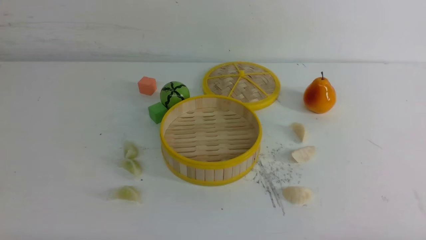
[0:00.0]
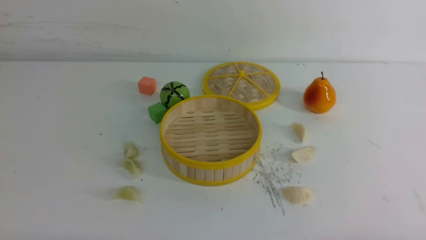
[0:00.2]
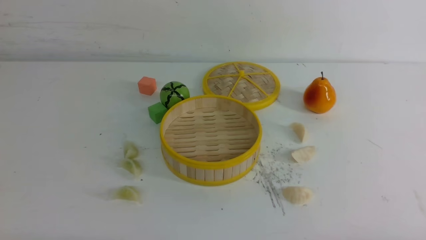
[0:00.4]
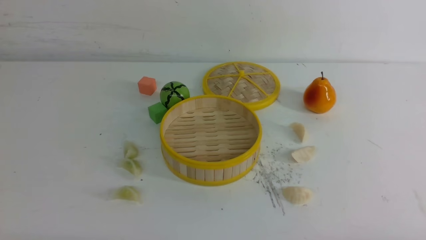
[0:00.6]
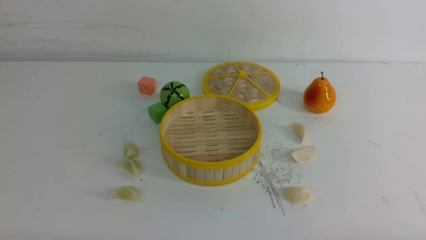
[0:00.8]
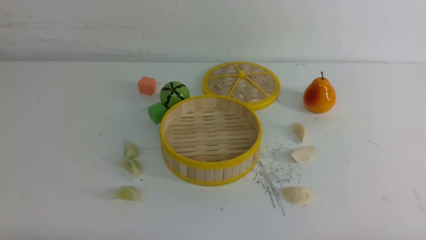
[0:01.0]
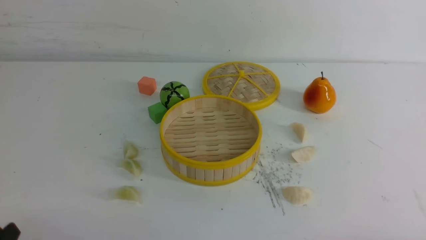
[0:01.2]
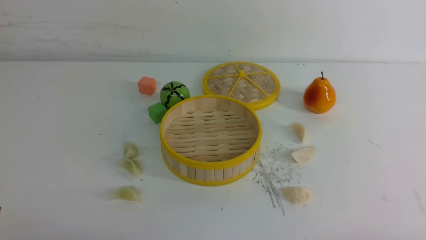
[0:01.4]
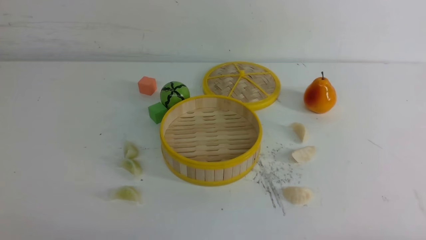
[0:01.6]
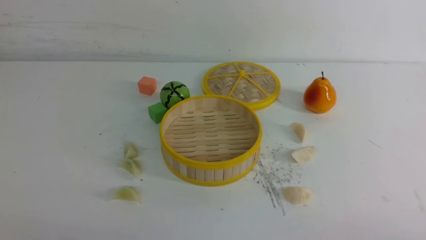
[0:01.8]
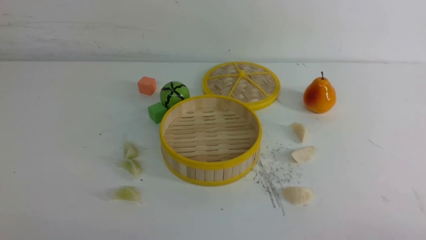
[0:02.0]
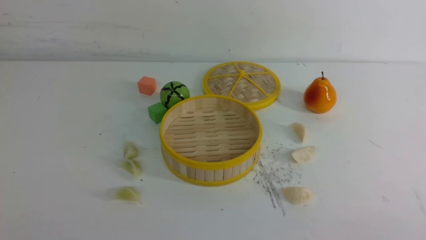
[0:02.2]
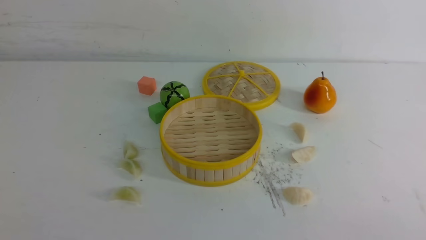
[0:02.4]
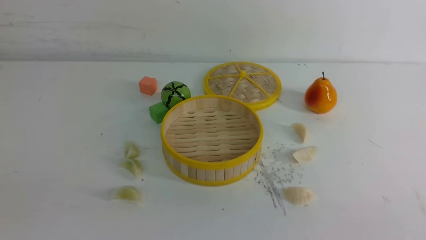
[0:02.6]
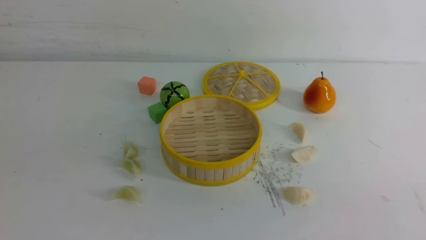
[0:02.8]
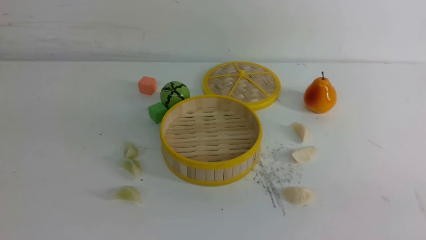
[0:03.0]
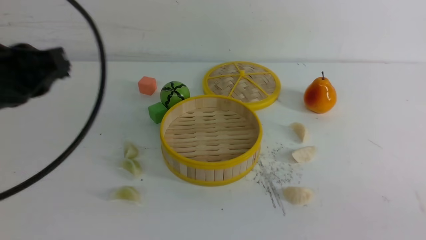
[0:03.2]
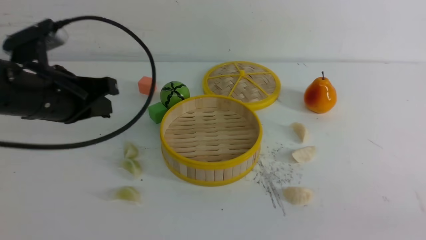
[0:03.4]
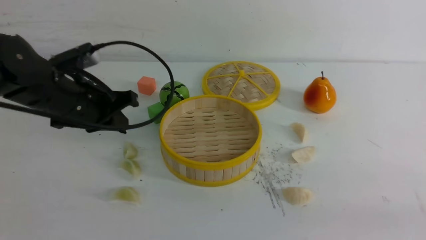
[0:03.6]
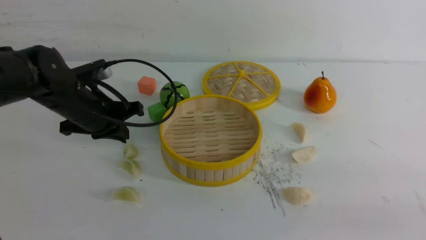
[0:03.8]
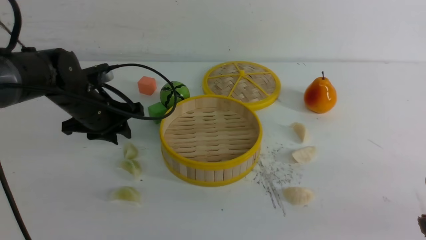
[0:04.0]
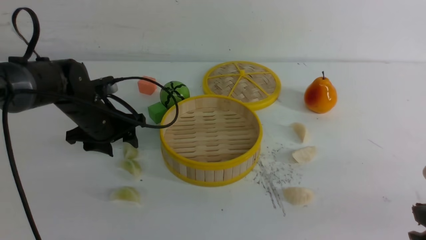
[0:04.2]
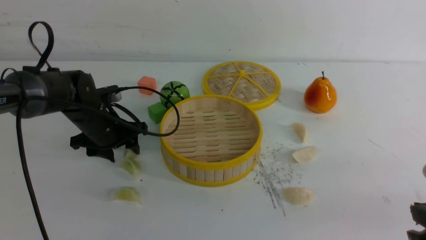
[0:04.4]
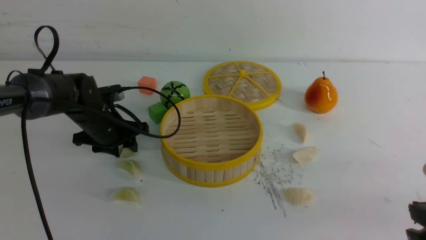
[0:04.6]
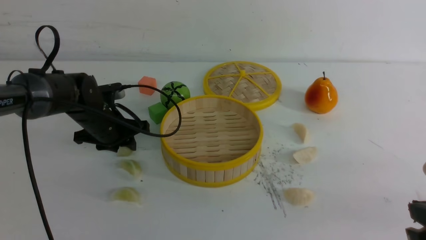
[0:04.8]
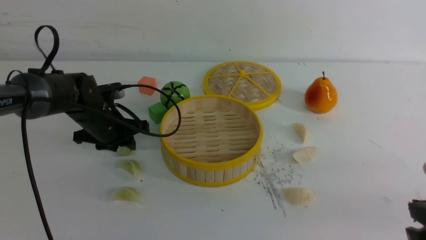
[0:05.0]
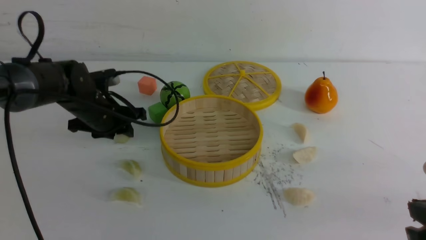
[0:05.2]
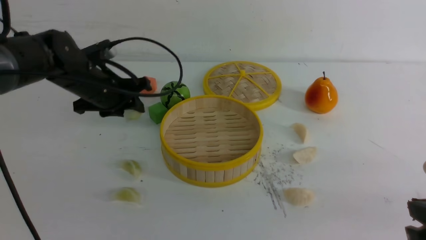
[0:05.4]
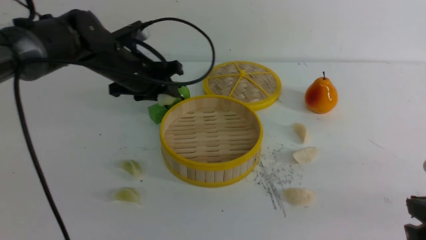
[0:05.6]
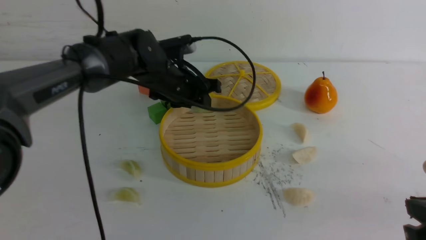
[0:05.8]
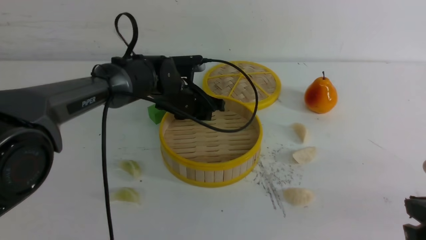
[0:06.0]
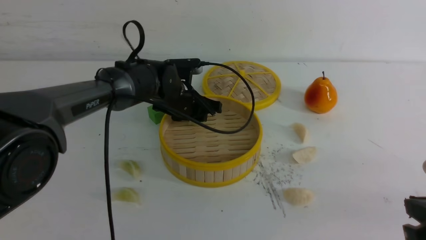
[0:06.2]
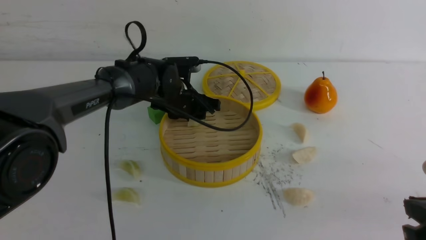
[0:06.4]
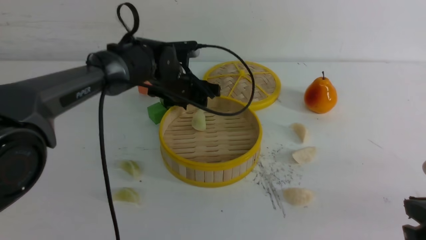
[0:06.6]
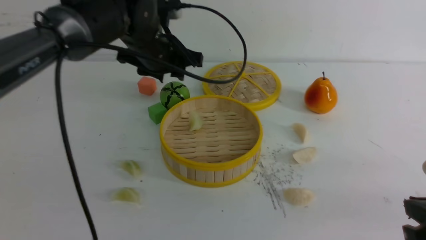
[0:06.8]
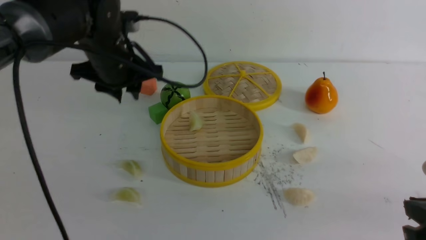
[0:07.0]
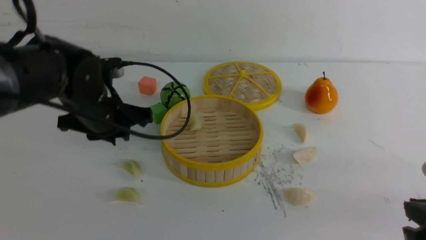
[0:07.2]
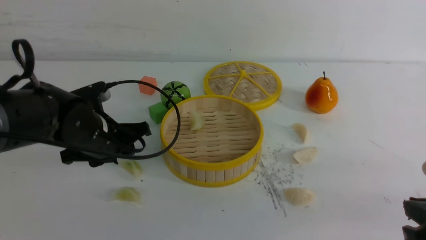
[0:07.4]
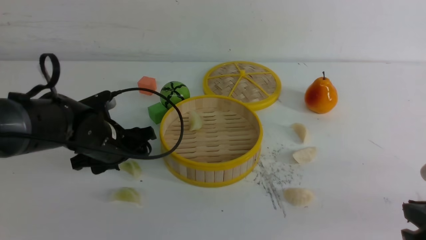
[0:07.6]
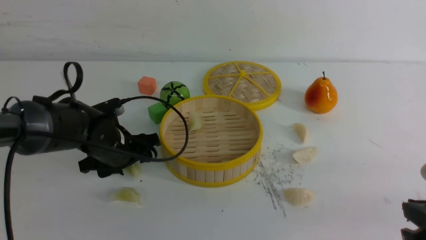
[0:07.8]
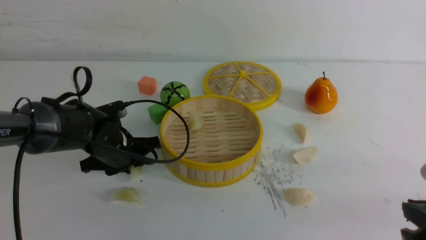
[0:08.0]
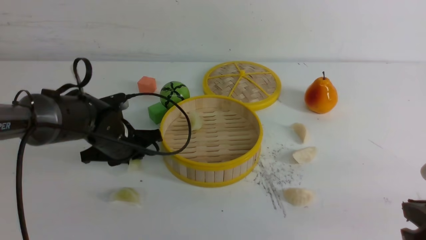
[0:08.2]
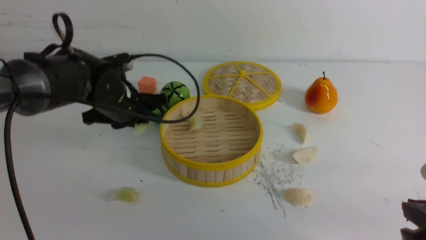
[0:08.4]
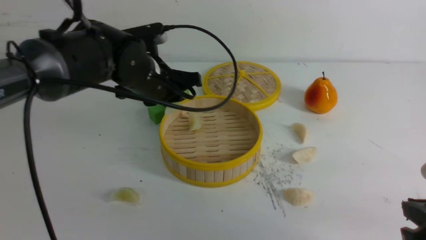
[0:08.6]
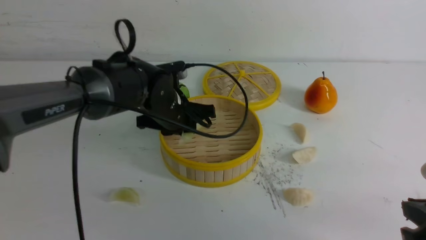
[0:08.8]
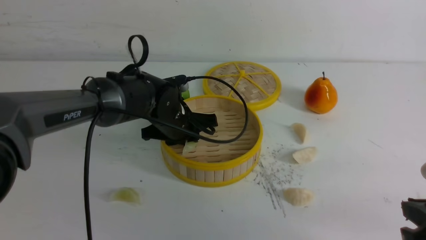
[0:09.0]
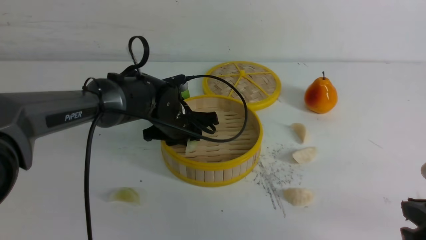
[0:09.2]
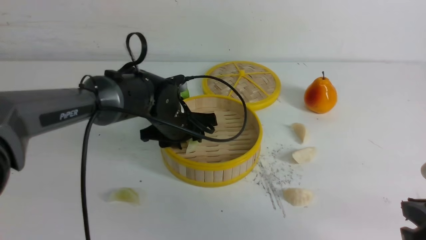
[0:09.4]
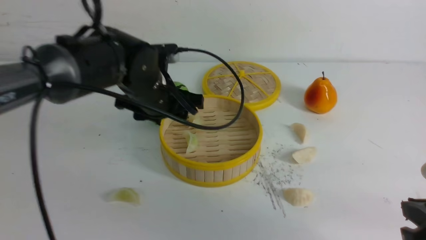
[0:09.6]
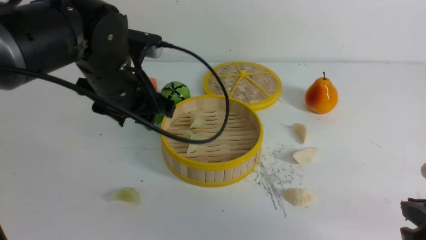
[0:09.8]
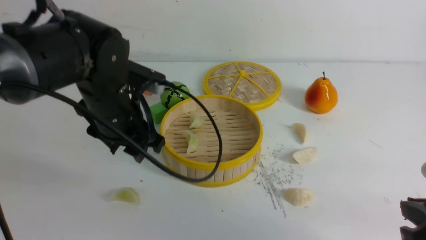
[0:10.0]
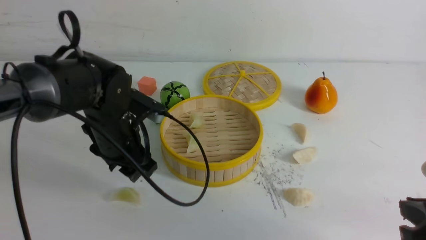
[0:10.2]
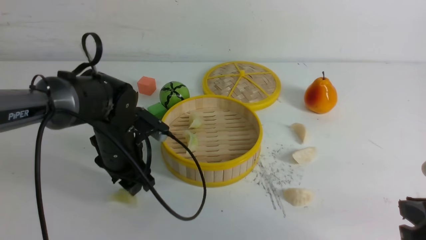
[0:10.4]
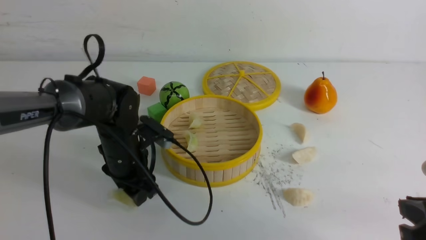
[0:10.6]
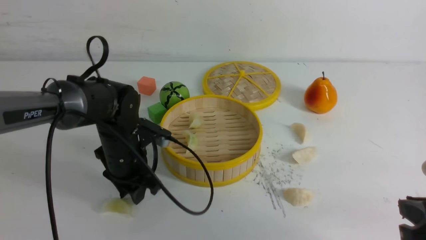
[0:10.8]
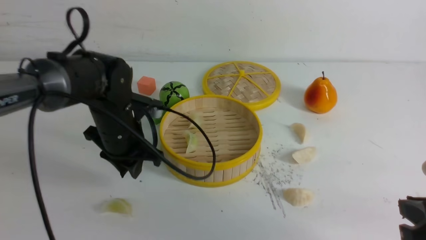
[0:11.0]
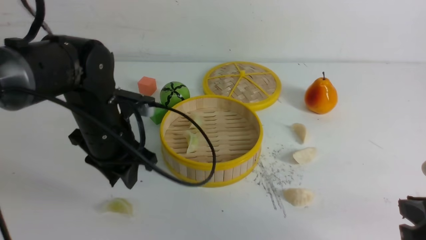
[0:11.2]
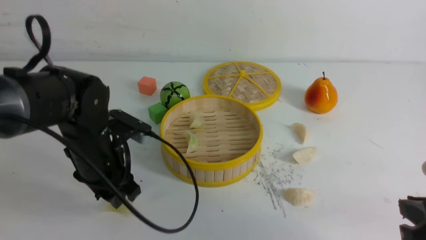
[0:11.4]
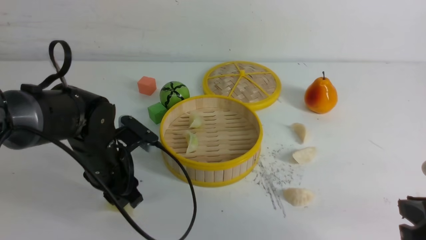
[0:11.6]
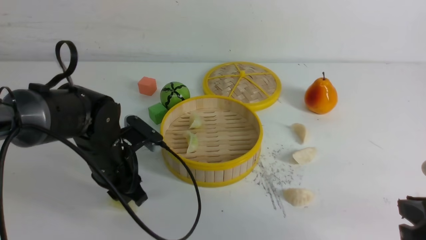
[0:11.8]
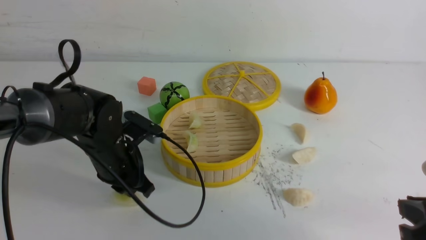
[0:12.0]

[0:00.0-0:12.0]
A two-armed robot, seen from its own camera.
Task of the whole recording: put the dumplings into the steamer on the white table.
Step, 0:00.0 to 0:05.0: use the left arm to grab a dumpling.
Step, 0:05.2 to 0:06.4: use the left arm to put the dumpling into the steamer.
Step, 0:06.6 to 0:08.2: use the left arm to grab a dumpling.
Step, 0:08.4 to 0:09.4: use the left arm to put the dumpling into the steamer.
0:03.0 to 0:04.4: The right gripper goes about 10 cm forward and downward. Meanwhile the left gripper heads downward and forward, covering about 25 cm, and opens up.
0:04.4 to 0:06.0: The left gripper moves to the right, roughly 15 cm, and closes up.
0:06.0 to 0:07.6: The left gripper moves backward and to the left, some 15 cm, and opens.
0:07.6 to 0:09.0: The left gripper heads to the right and forward, covering about 10 cm, and closes up.
0:09.0 to 0:10.4: The left gripper travels to the left by approximately 10 cm, travels upward and back again, roughly 10 cm each way, and opens up.
0:10.4 to 0:12.0: The left gripper closes its fingers.

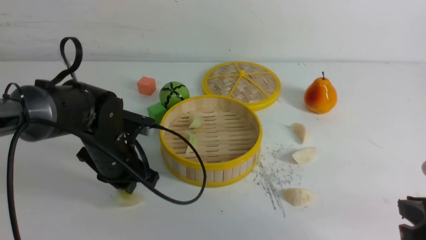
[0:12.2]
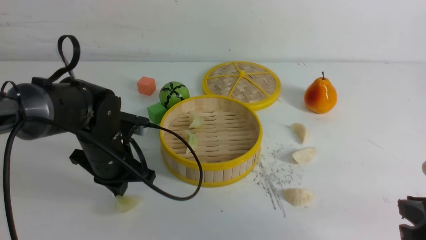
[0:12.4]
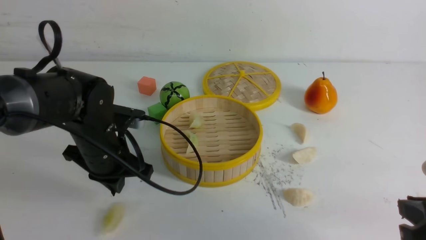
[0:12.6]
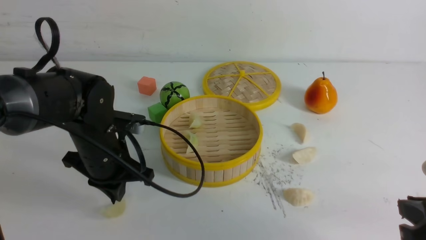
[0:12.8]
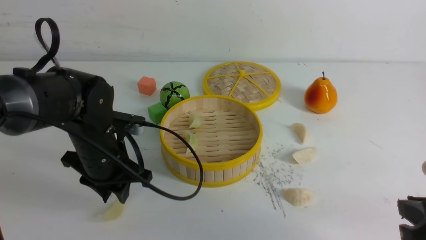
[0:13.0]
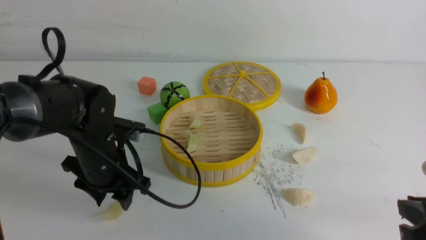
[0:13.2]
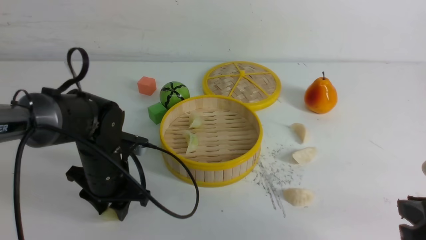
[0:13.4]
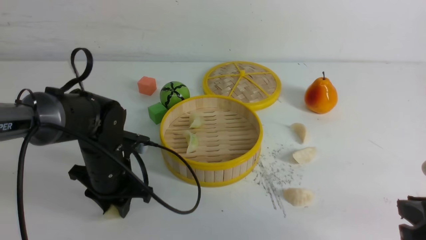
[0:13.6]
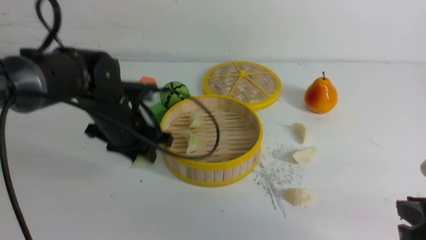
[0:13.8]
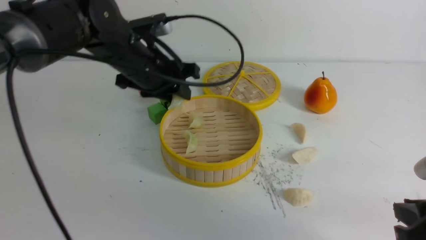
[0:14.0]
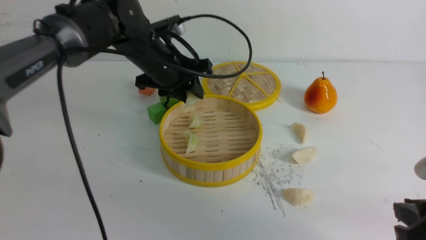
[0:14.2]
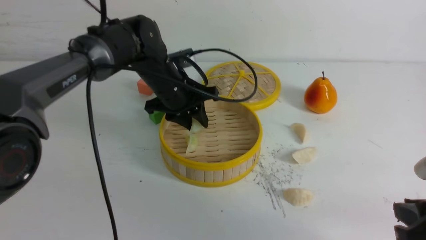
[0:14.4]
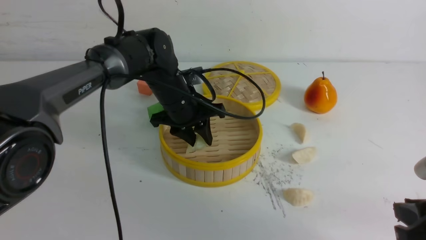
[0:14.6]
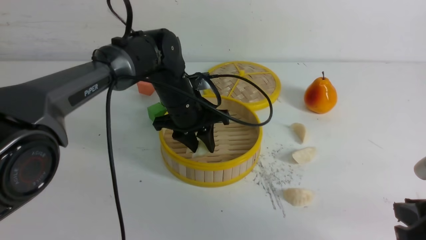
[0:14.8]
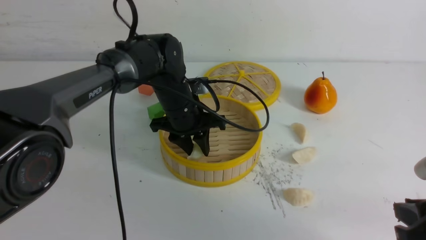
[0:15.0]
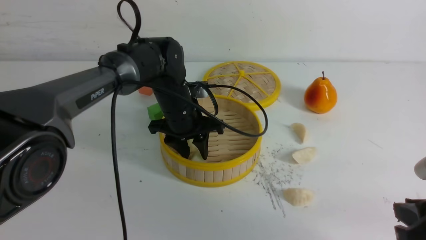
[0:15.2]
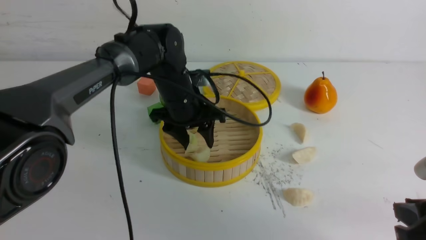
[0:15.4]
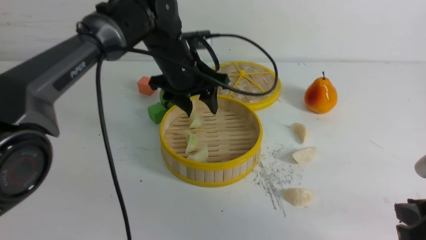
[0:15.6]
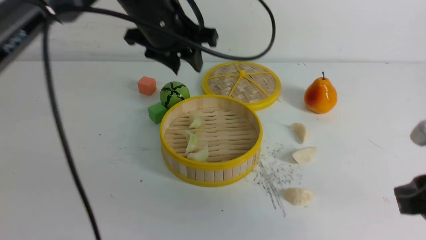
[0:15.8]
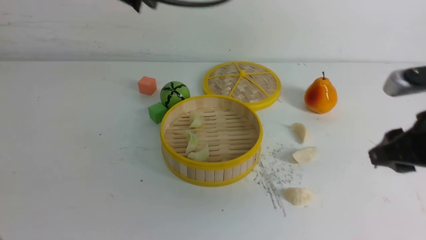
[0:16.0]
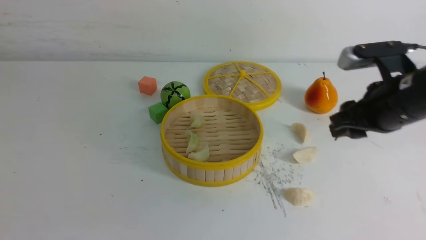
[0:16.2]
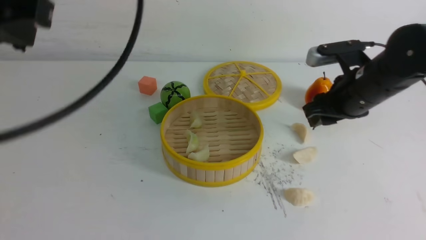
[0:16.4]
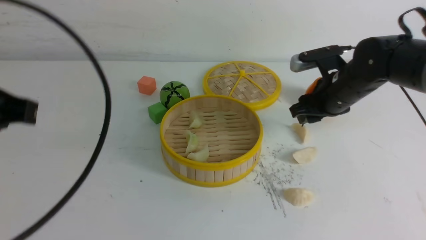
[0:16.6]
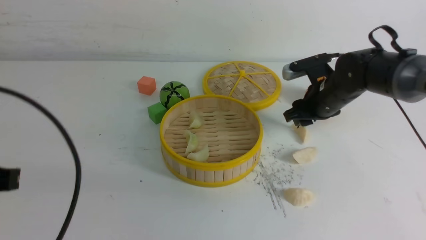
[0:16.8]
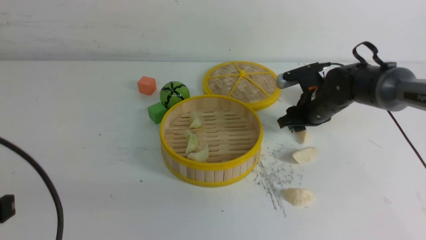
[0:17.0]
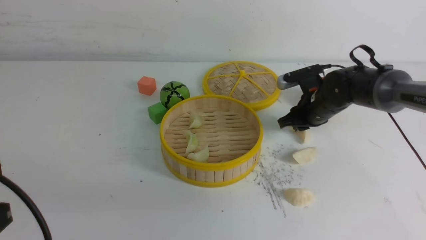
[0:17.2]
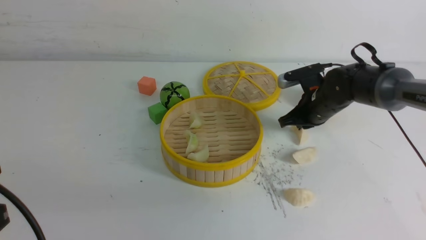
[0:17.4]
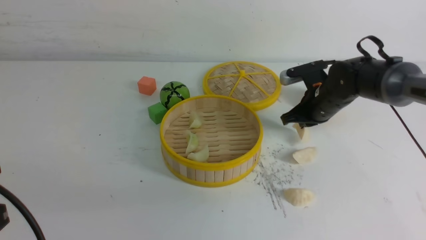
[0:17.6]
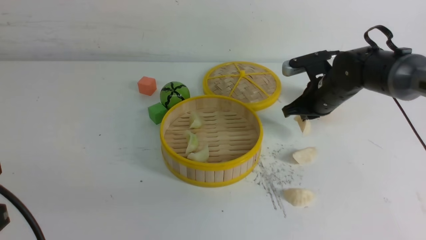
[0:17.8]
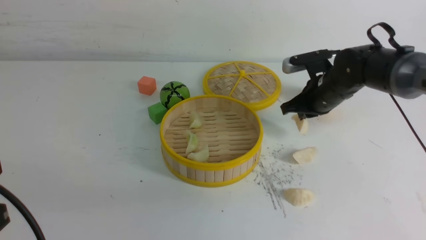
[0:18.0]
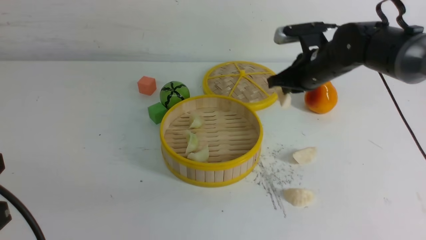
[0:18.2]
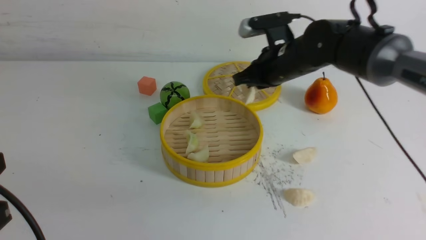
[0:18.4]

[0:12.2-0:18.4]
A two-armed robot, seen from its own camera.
Task of the whole recording: put the dumplings into the steamer on the white table.
Step, 0:13.8 to 0:15.2: use the left arm to put the dumpling into the steamer.
Step, 0:15.6 to 0:17.6: use the right arm to grab a dumpling.
0:12.2 to 0:13.8: The left gripper goes about 5 cm upward, and opens.
0:13.8 to 0:15.4: The left gripper heads to the right and forward, covering roughly 10 cm, and opens its fingers.
0:15.4 to 0:16.8: The right gripper goes about 30 cm forward, and opens its fingers; the left gripper shifts some 35 cm backward and to the left, and closes its fingers.
0:16.8 to 0:18.4: The right gripper shifts roughly 10 cm to the left and upward, and closes its fingers.
